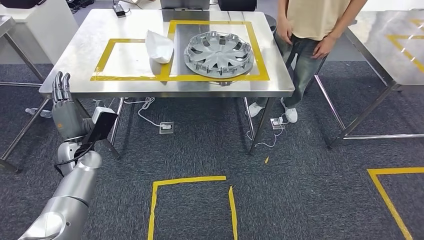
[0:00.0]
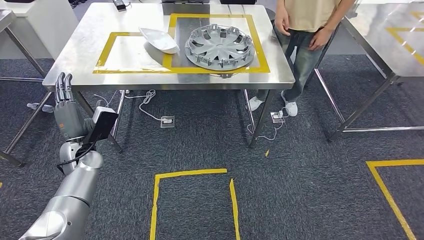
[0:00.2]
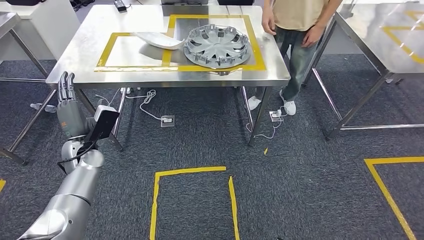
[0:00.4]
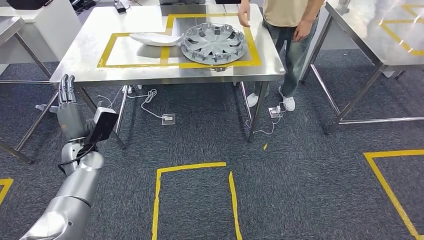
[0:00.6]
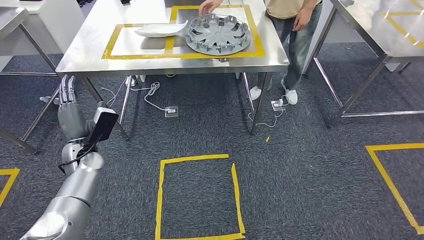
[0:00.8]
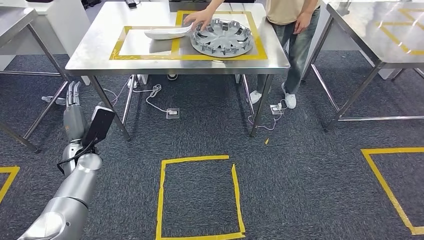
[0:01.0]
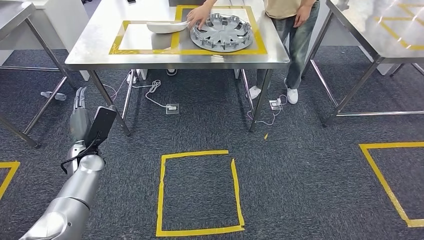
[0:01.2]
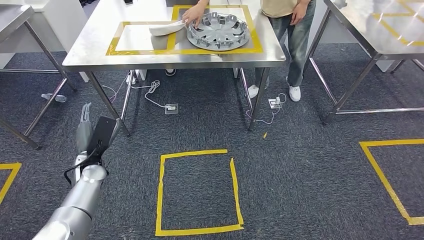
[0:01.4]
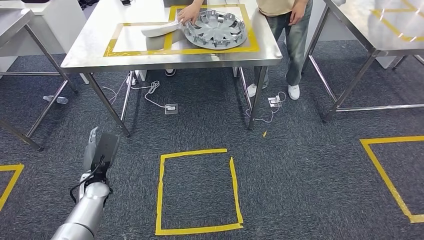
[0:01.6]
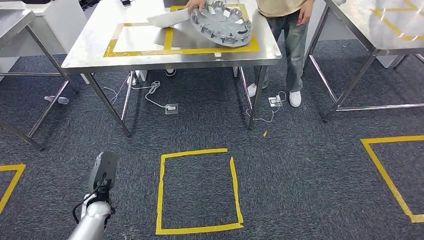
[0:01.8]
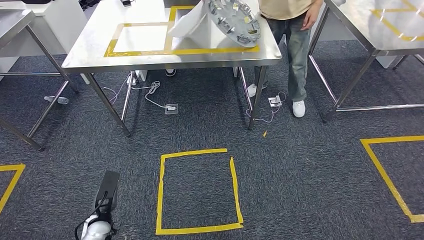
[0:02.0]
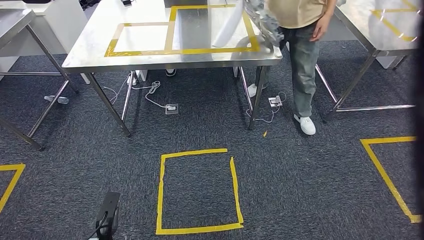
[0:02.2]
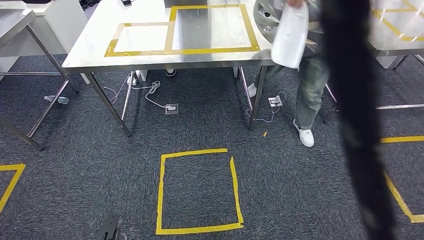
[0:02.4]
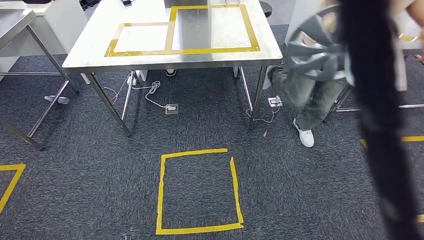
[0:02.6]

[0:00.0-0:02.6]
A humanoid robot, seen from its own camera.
Step, 0:00.0 to 0:02.6: Return to the initial position at the workbench.
